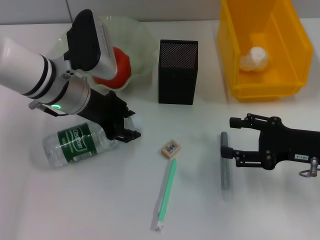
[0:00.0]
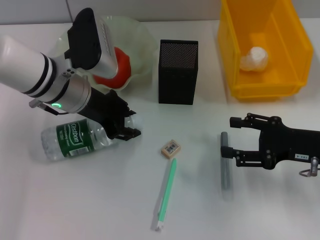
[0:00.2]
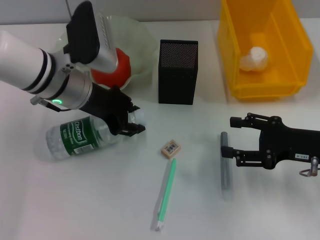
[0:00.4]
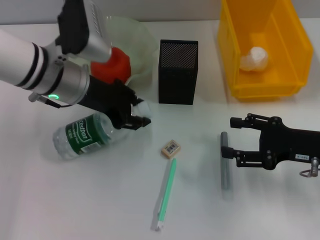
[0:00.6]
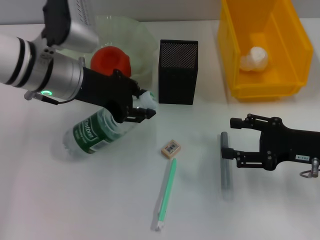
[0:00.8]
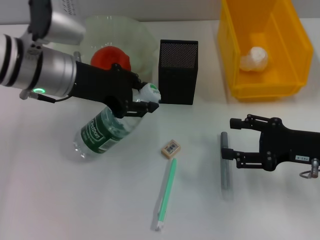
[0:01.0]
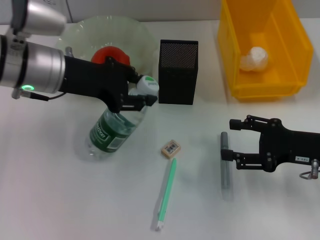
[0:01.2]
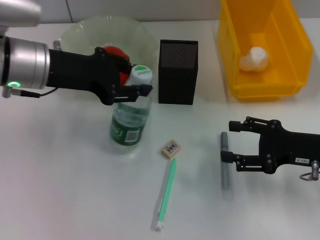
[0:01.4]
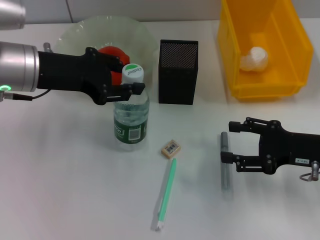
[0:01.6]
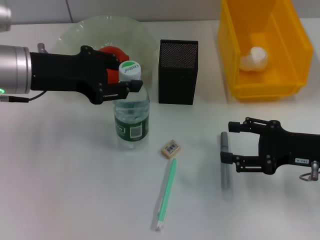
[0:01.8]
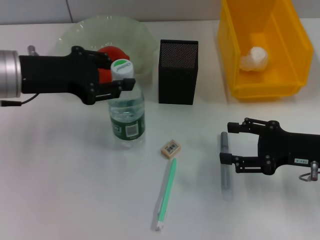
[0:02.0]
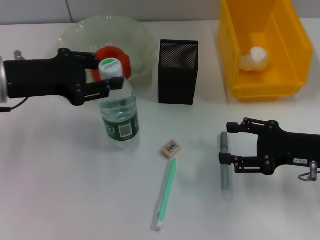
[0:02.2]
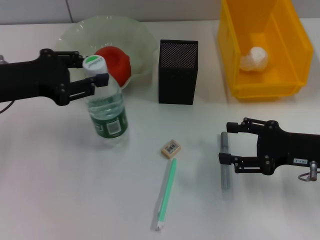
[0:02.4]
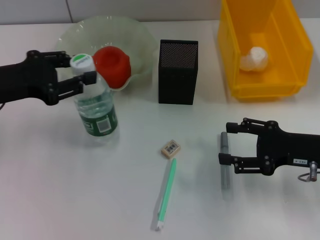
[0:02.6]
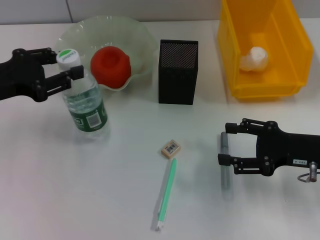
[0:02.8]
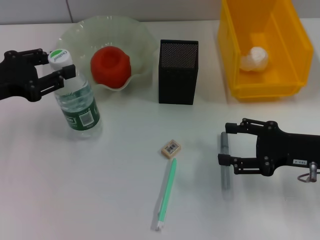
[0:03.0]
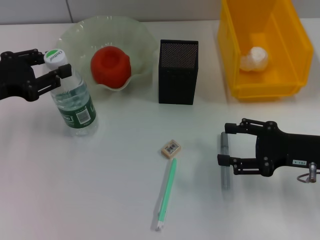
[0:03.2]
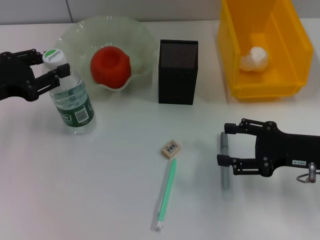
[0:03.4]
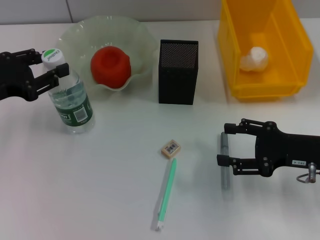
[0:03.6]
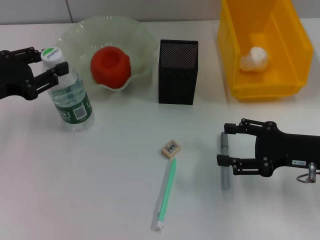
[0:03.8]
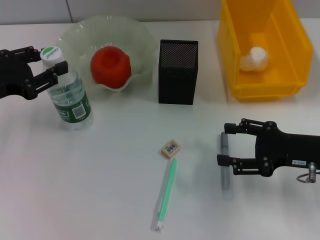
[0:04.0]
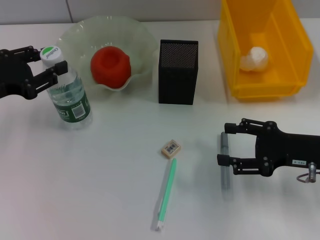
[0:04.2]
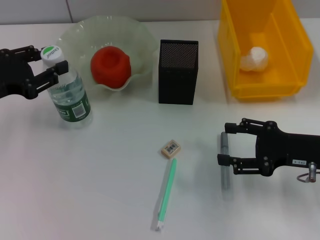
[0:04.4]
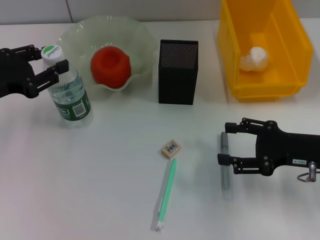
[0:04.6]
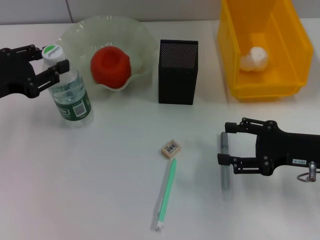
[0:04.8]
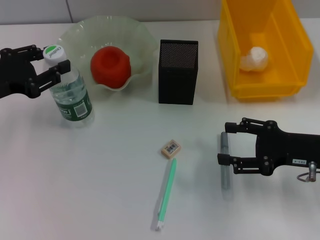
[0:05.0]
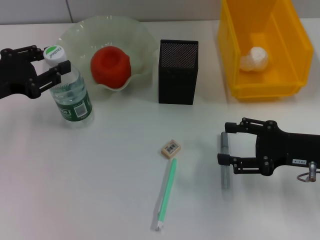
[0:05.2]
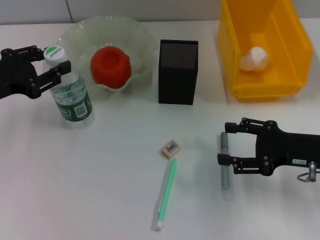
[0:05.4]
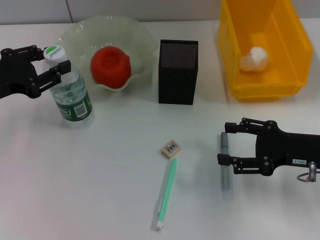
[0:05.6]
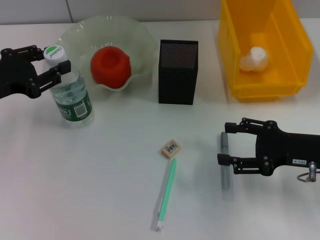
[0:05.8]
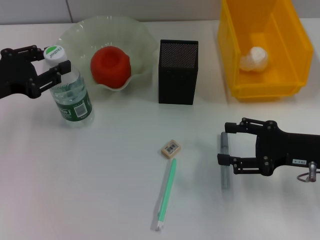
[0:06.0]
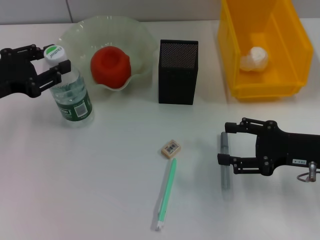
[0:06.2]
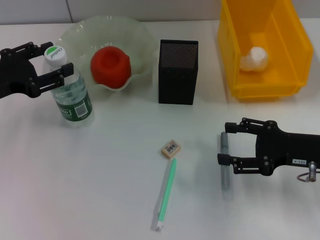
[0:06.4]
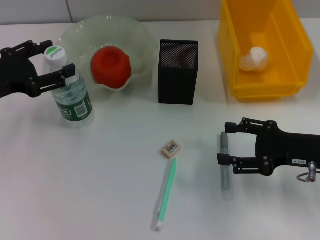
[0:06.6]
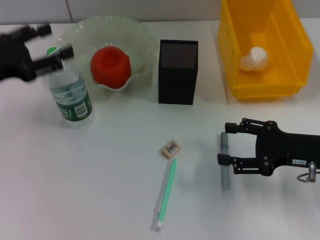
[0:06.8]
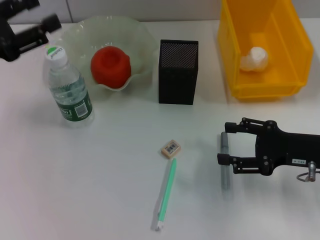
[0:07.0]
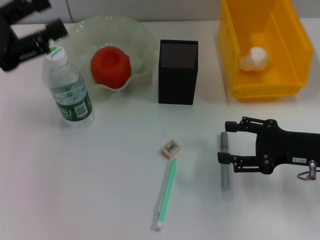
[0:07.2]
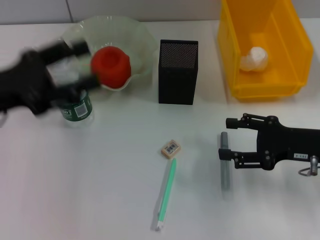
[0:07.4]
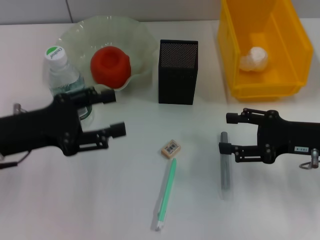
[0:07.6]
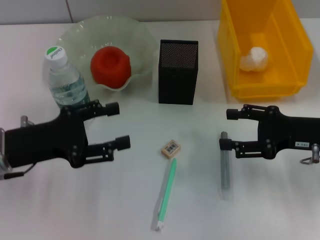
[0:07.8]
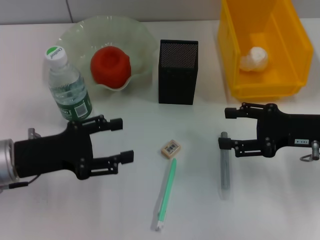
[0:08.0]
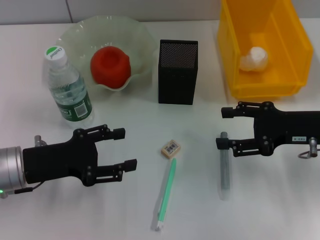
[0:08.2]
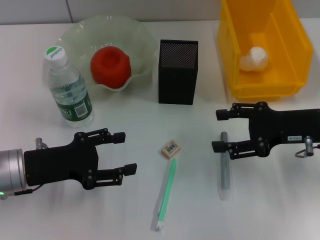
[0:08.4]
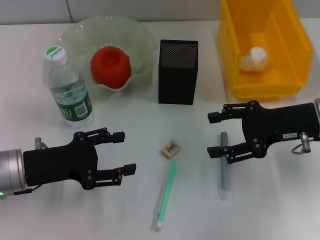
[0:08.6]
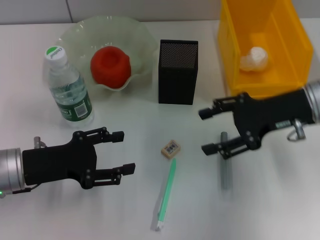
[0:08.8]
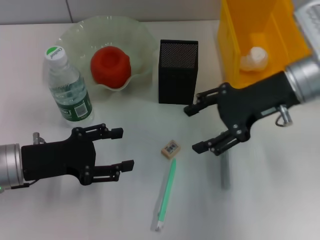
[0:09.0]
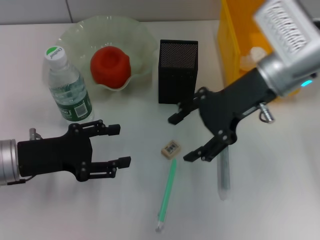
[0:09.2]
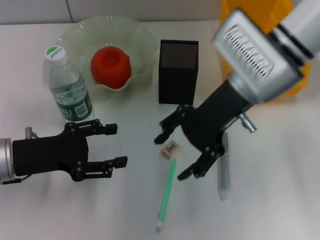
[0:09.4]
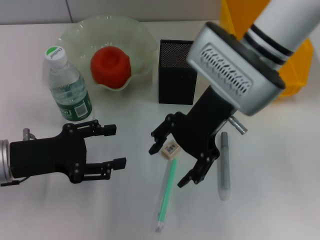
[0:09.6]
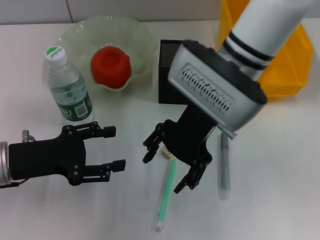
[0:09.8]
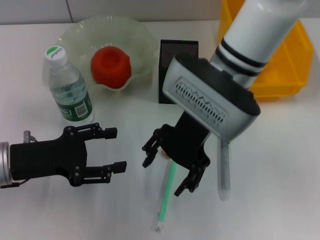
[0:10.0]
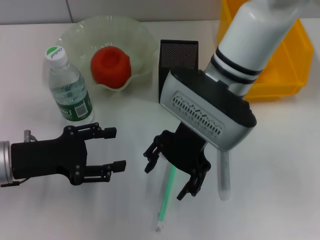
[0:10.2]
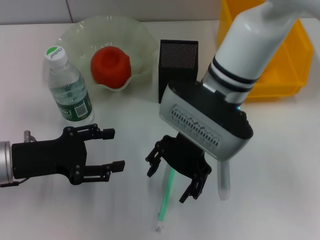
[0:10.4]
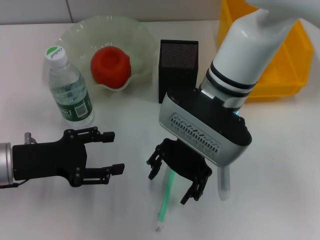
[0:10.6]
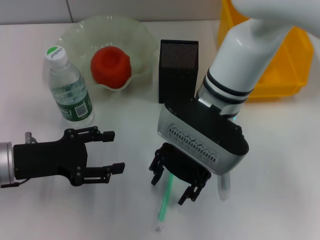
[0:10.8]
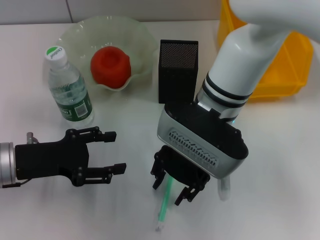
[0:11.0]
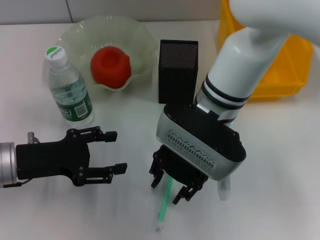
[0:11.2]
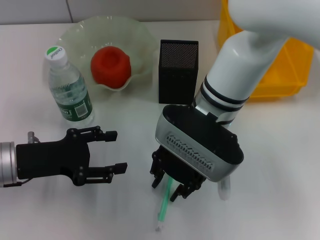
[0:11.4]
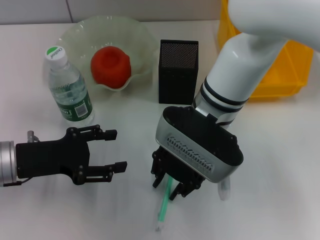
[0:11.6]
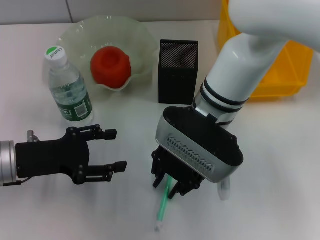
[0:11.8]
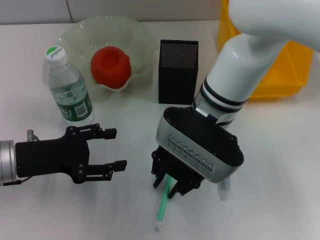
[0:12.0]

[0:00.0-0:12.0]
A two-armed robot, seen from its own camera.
Step, 0:00.4 to 0:07.0: Place the water bottle on the table with the left hand.
0:00.0 to 0:01.6: The left gripper moves upward and to the left, some 10 cm.
0:01.6 to 0:03.0: The left gripper shifts approximately 10 cm to the left.
0:03.0 to 0:04.4: There are only small adjustments of the grippers.
0:04.4 to 0:06.0: The two grippers keep their place.
0:06.0 to 0:07.6: The left gripper ends up roughly 5 cm from where it was, and opens.
0:07.6 to 0:09.0: The right gripper moves upward, to the left and forward, about 15 cm.
0:09.0 to 0:10.4: The right gripper goes some 15 cm to the left.
0:10.4 to 0:12.0: The right gripper closes up.

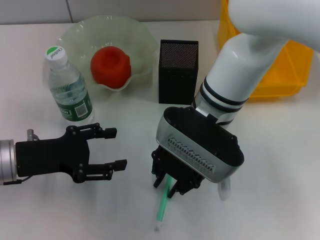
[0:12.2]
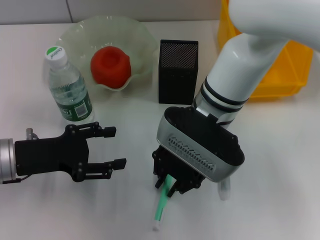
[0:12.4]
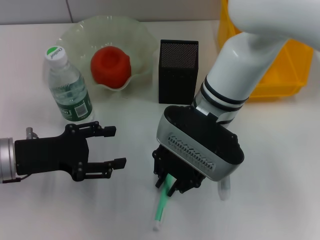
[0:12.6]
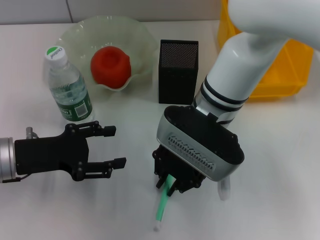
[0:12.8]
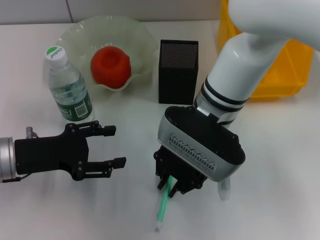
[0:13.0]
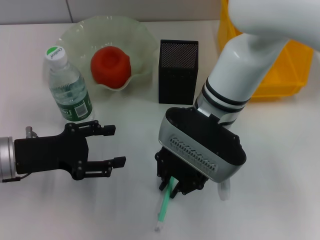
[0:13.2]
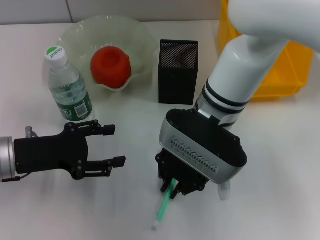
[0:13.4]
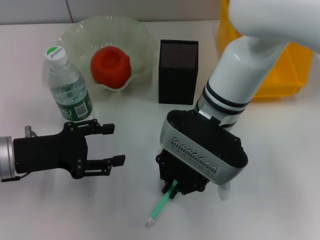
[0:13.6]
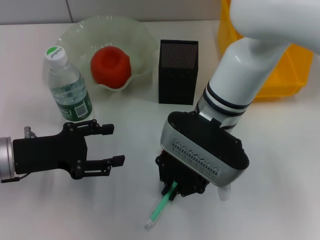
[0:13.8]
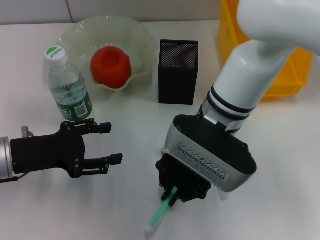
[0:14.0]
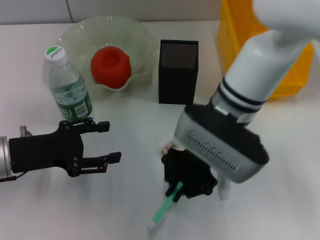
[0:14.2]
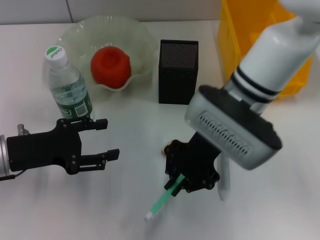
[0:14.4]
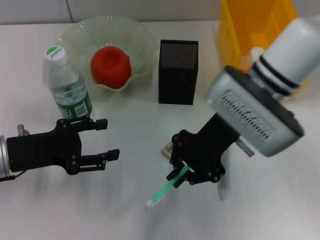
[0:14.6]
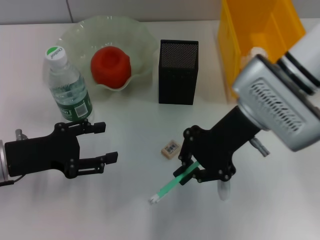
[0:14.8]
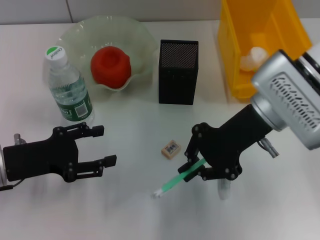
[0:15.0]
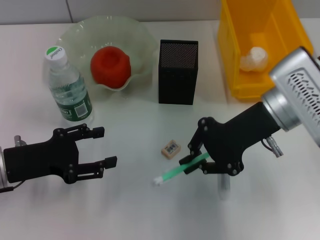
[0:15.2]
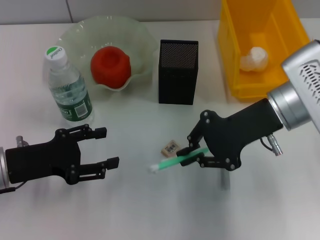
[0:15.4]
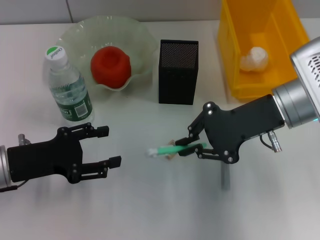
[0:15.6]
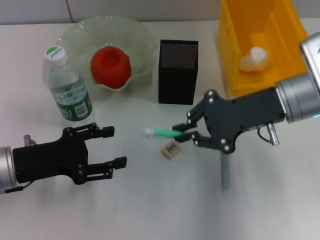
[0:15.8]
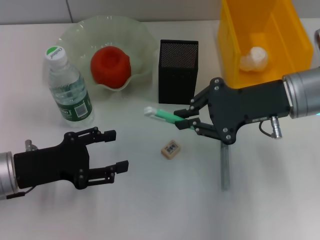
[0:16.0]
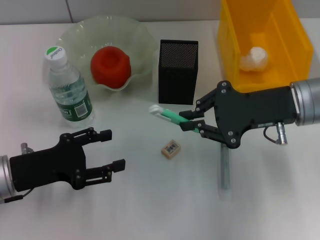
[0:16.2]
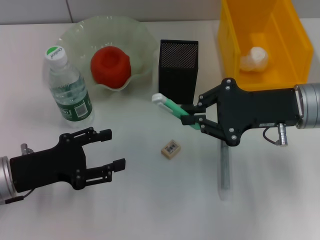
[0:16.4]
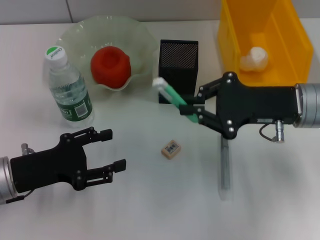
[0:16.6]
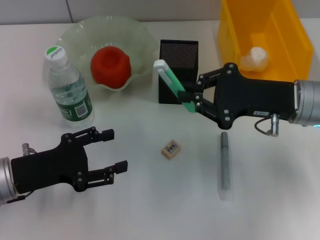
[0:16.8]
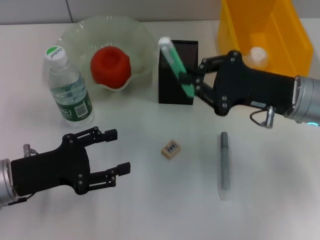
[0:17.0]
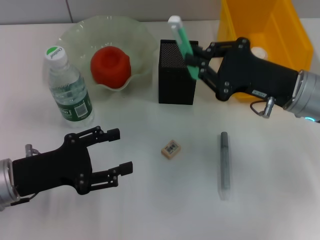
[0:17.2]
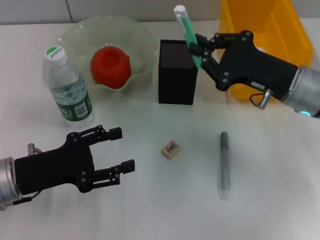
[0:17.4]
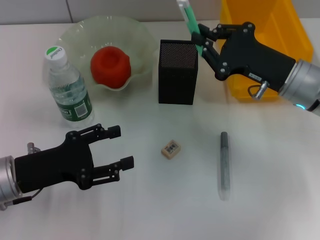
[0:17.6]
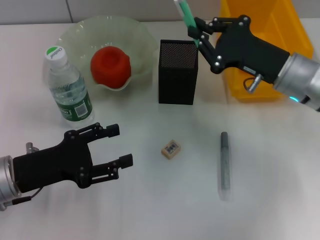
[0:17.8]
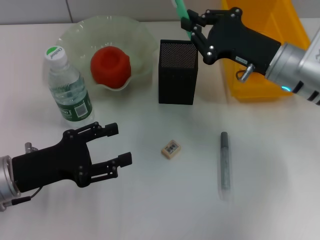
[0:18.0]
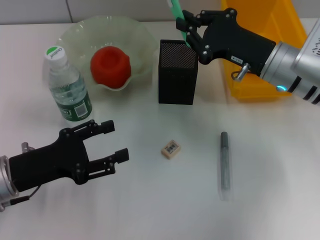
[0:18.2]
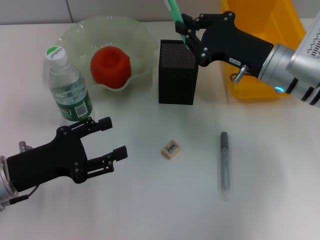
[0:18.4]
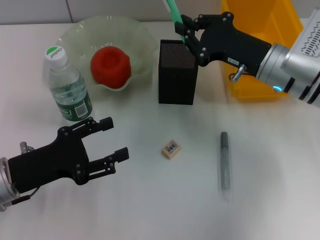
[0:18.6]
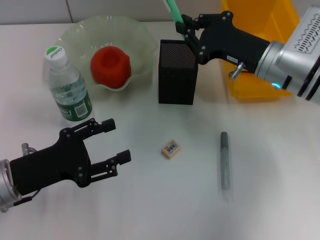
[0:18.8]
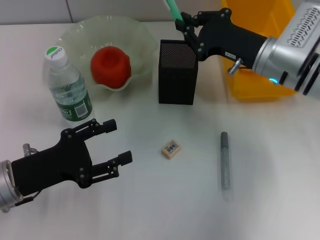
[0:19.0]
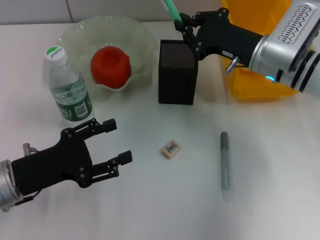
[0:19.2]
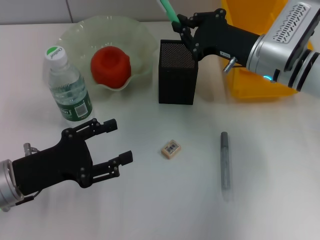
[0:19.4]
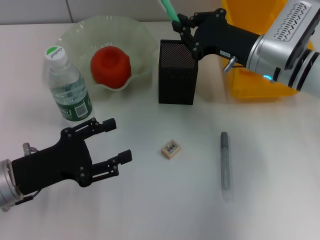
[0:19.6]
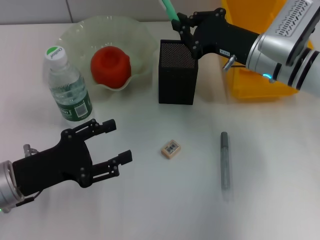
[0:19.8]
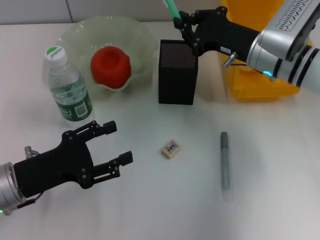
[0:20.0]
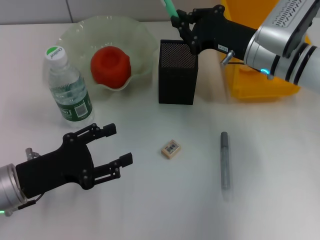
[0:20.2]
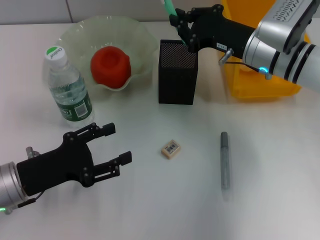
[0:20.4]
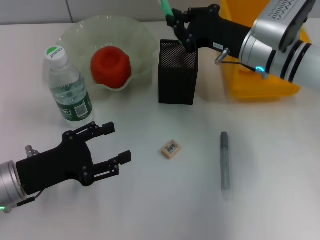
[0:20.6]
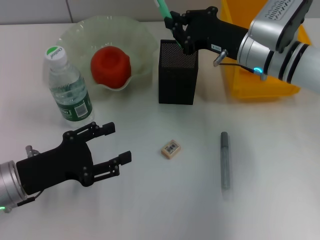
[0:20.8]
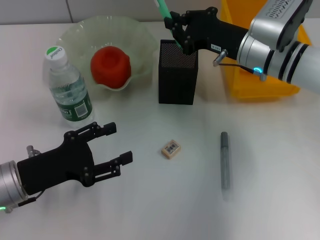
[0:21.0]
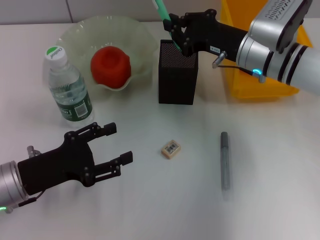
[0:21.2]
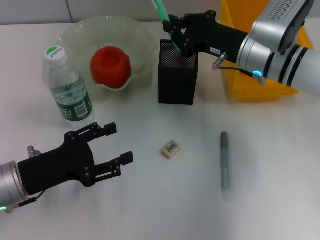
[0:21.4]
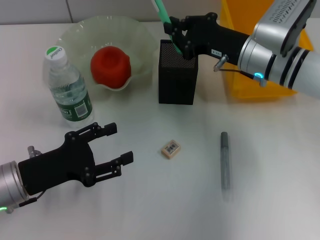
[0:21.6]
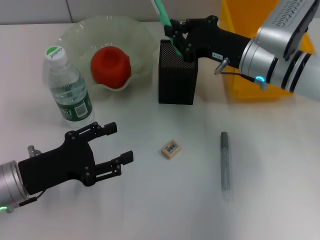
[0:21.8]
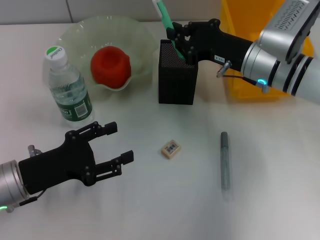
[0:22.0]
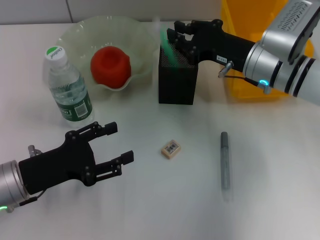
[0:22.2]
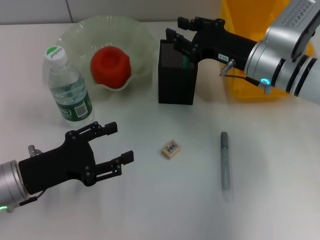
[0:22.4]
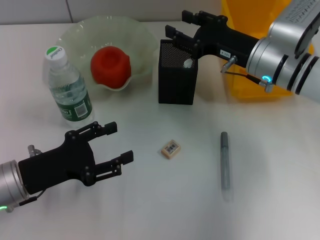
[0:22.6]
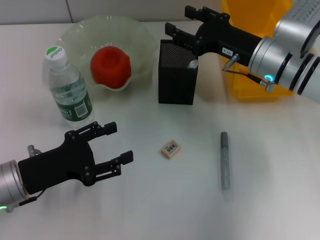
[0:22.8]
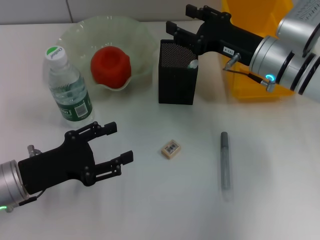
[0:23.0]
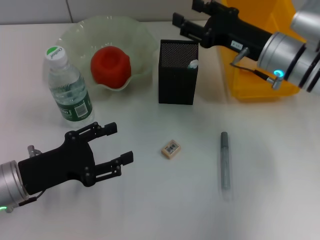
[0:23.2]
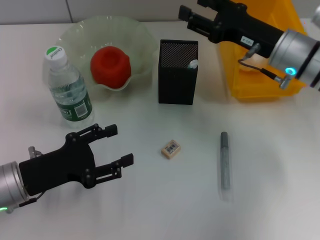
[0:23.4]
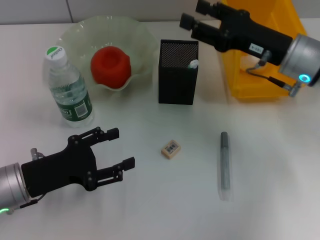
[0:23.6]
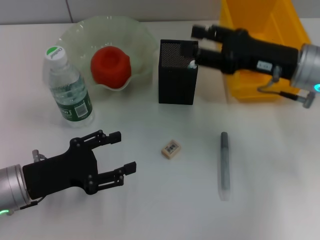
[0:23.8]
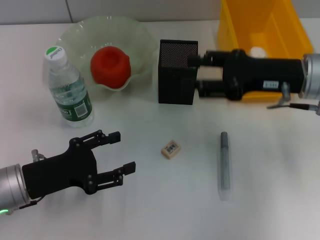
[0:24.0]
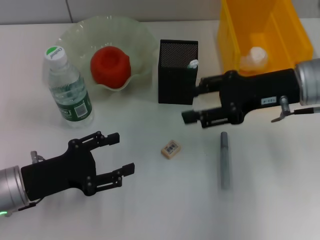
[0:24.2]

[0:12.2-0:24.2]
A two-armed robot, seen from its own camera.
Step, 0:13.4 to 0:22.6: Place the blue utility knife into the pen holder with the right hand.
0:12.2 to 0:13.8: Both grippers stay put.
0:13.8 to 0:15.2: The right gripper shifts approximately 10 cm to the right.
0:15.2 to 0:16.6: The right gripper ends up about 5 cm from where it was.
0:16.6 to 0:18.2: The right gripper shifts by approximately 5 cm.
0:18.2 to 0:21.2: The grippers make only small movements.
0:21.2 to 0:22.6: The right gripper opens its fingers.
0:22.6 to 0:24.2: The right gripper changes place by approximately 5 cm.
